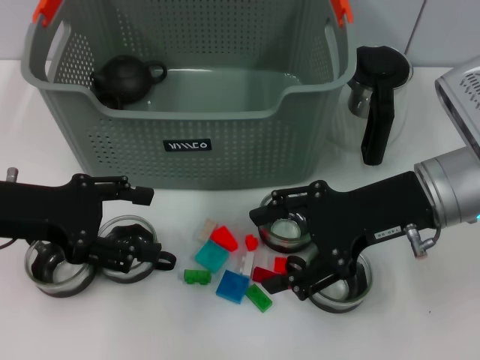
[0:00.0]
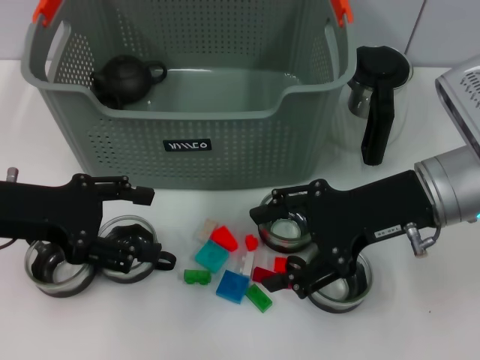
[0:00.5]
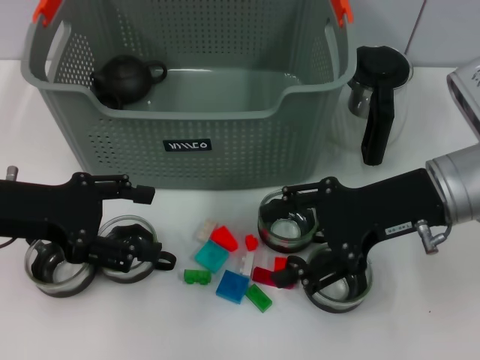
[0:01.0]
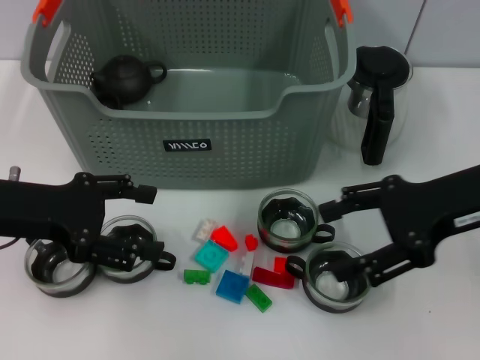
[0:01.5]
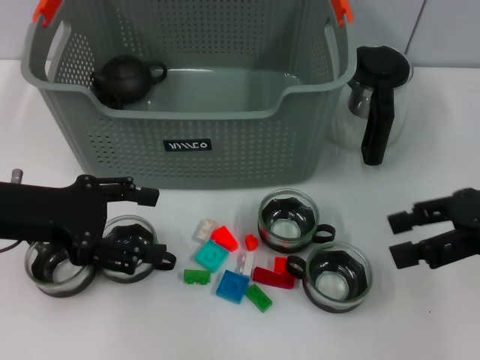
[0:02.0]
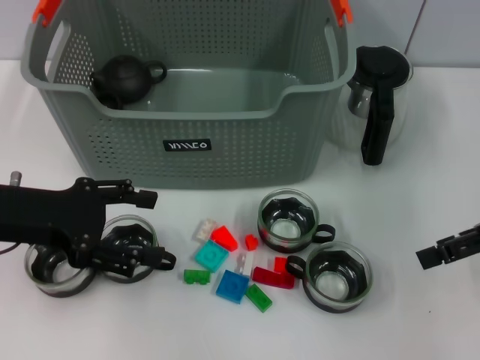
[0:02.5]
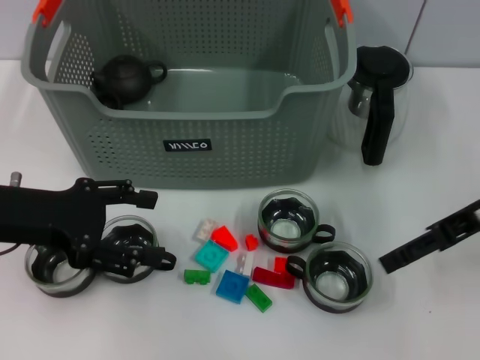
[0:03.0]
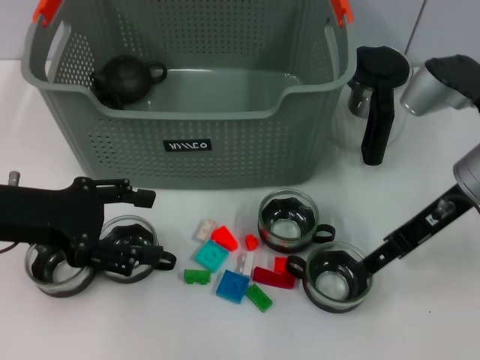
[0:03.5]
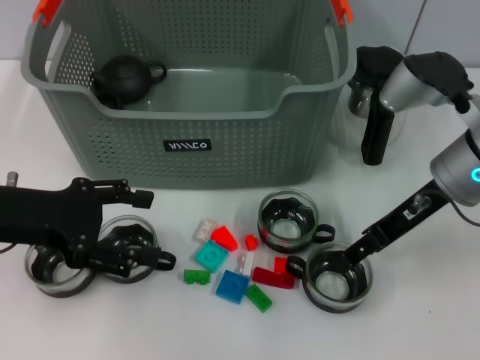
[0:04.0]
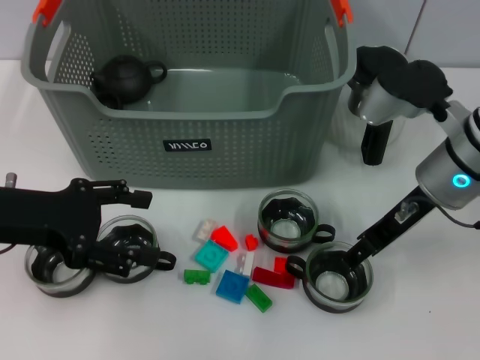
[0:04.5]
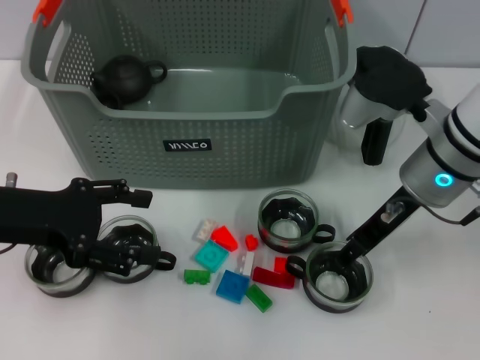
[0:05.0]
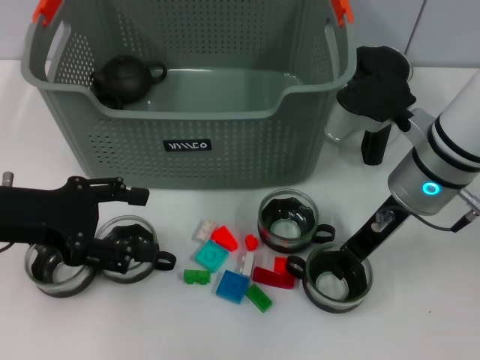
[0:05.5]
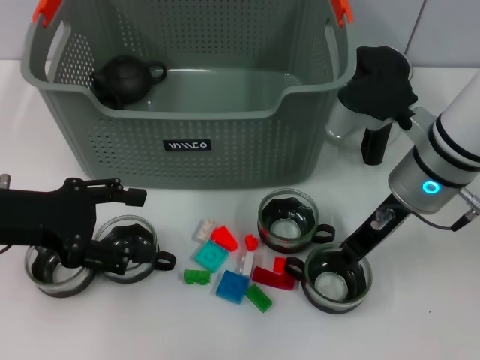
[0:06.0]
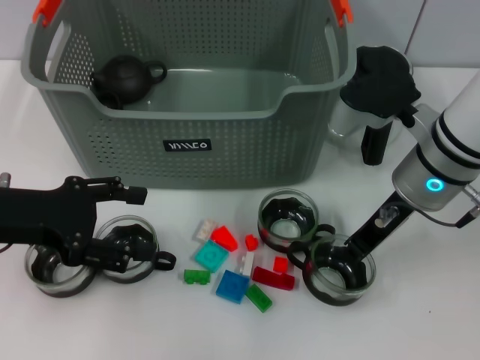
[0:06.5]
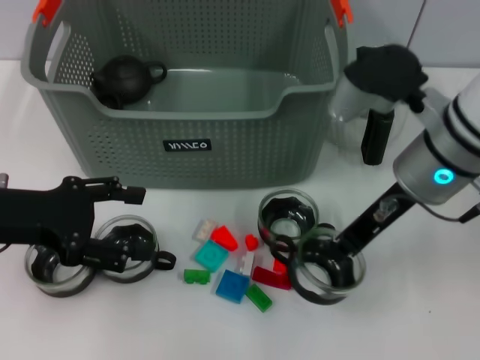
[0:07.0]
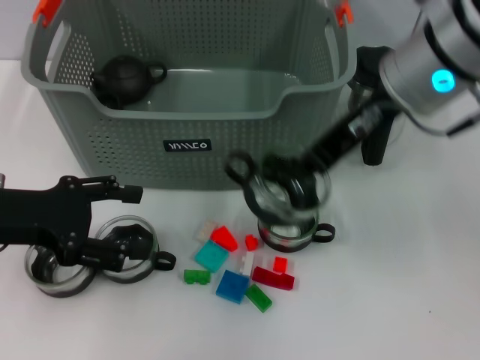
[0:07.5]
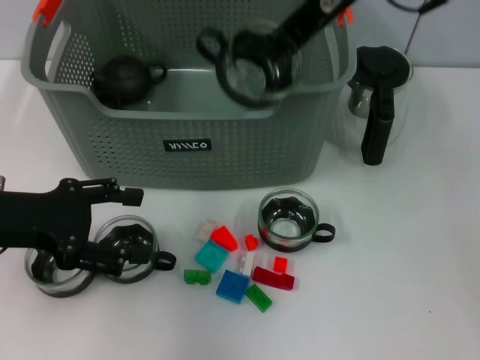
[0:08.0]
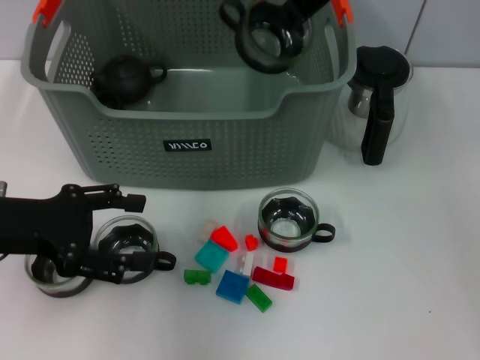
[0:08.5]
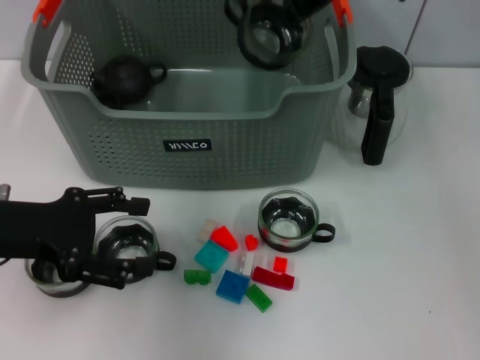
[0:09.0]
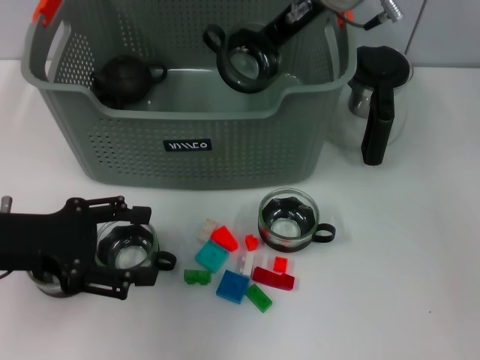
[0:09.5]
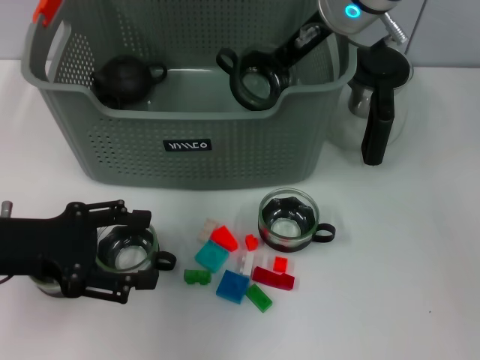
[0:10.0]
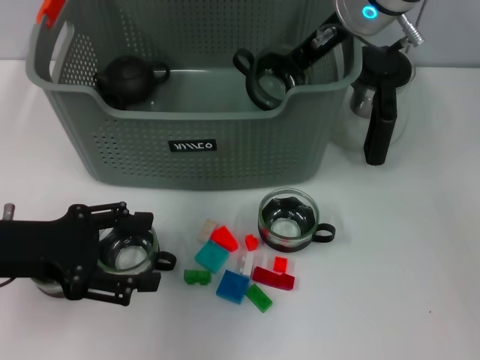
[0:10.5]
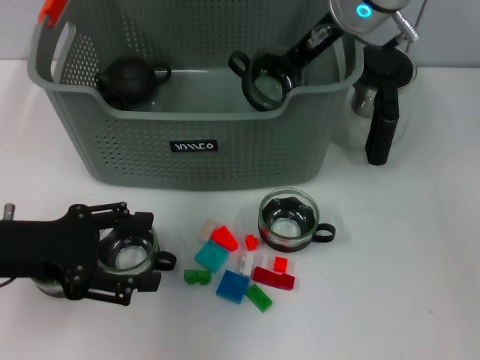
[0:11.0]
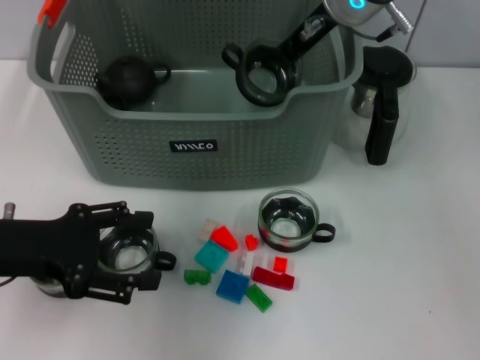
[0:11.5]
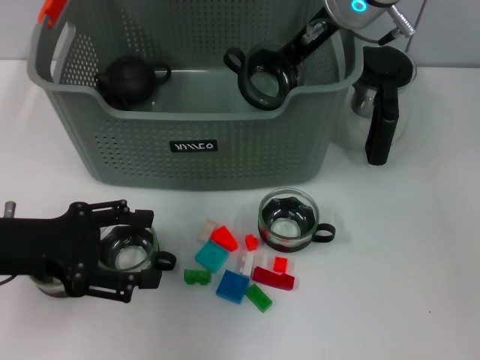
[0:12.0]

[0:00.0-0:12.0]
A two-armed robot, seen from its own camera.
Task of the whole recording: pick up the teacup on the table and place it into the storage bin, pick up the block on the table and place it into the storage bin.
Step, 0:00.0 to 0:06.0: Grasp the cup with right gripper.
0:00.0 to 0:02.0: The right gripper travels to the right by roughly 10 cm.
0:02.0 to 0:04.0: The right gripper is displaced to the left and forward by some 10 cm.
0:04.0 to 0:06.0: The right gripper closes up.
0:06.0 to 0:08.0: The right gripper goes about 20 cm upward, and closes up.
0:08.0 to 0:10.0: The right gripper heads downward and forward, covering roughly 10 cm.
0:10.0 to 0:12.0: The grippers make only small movements.

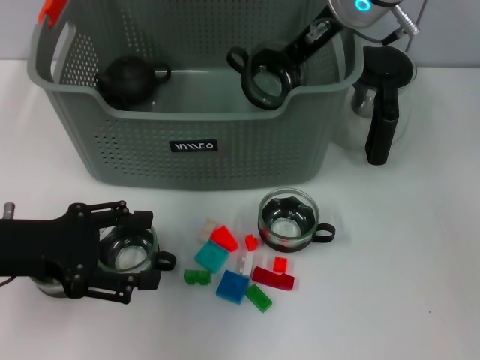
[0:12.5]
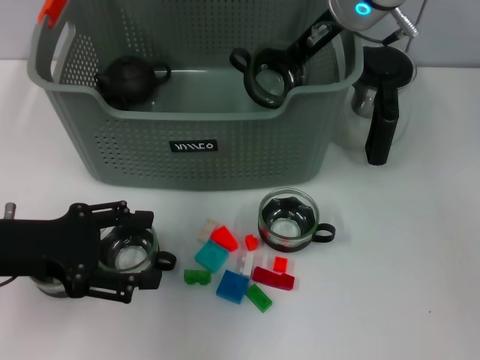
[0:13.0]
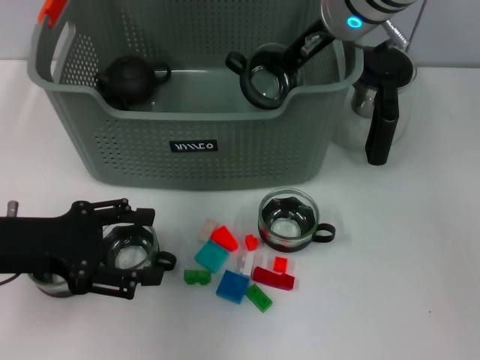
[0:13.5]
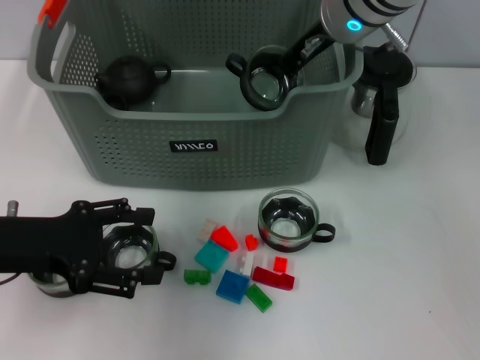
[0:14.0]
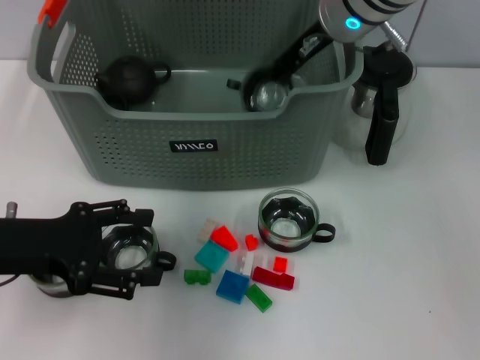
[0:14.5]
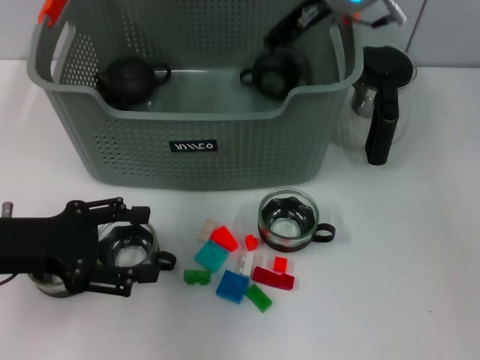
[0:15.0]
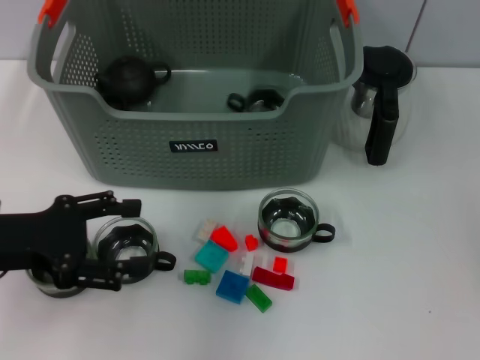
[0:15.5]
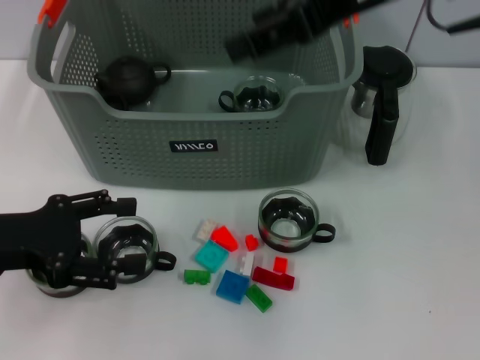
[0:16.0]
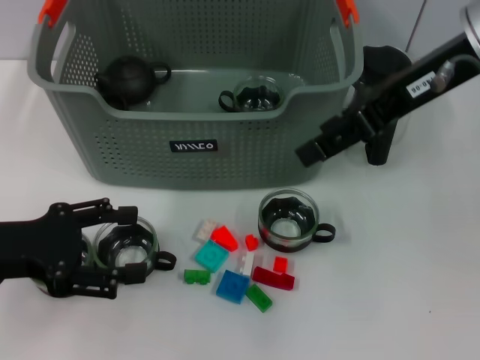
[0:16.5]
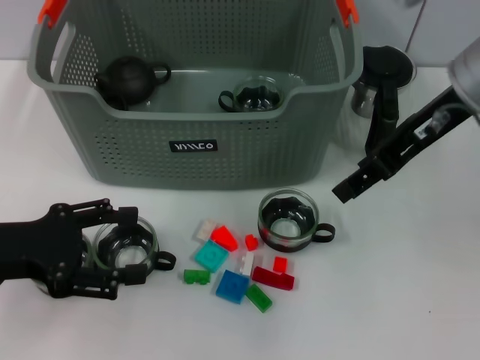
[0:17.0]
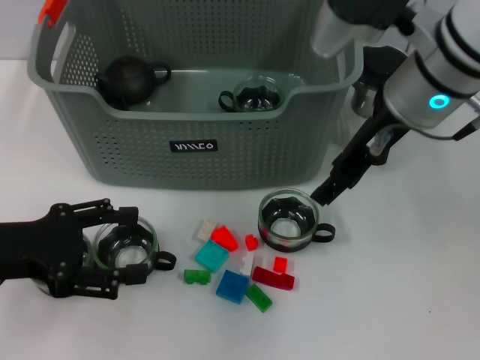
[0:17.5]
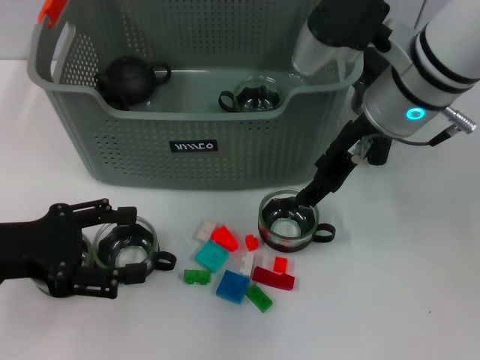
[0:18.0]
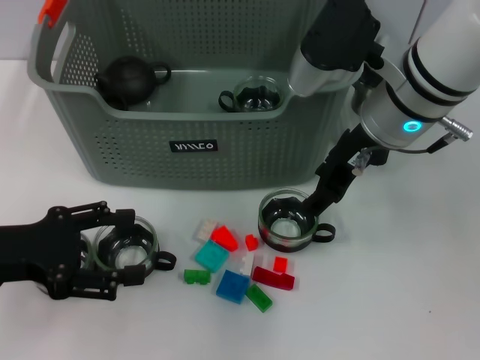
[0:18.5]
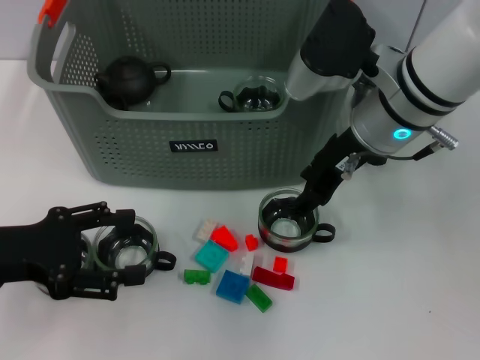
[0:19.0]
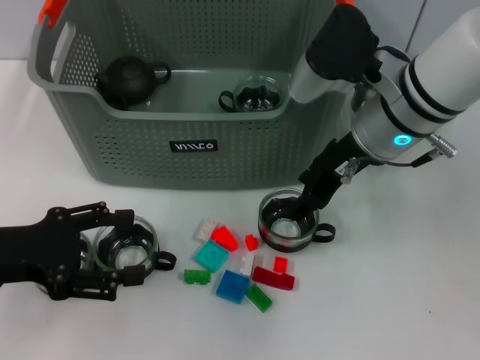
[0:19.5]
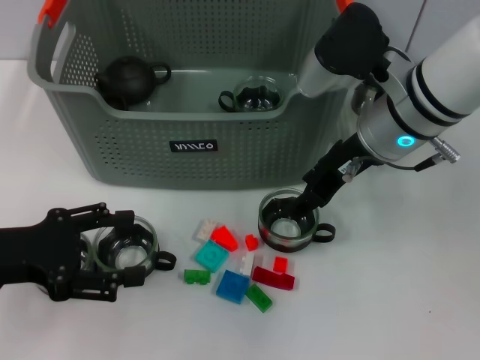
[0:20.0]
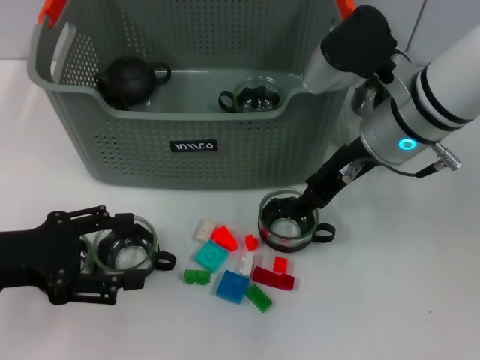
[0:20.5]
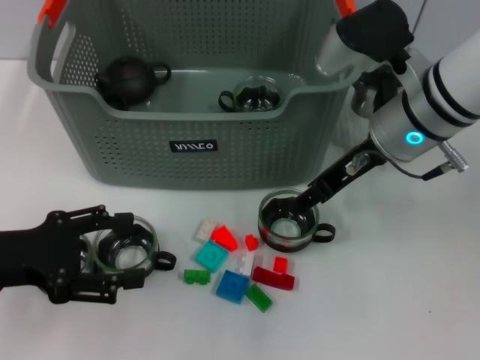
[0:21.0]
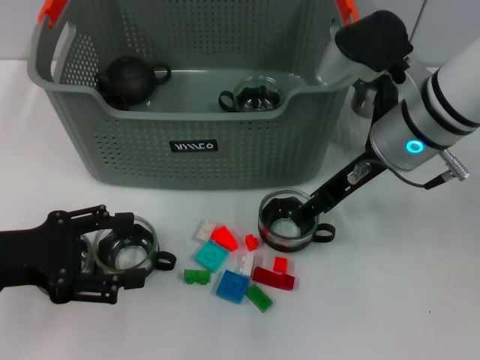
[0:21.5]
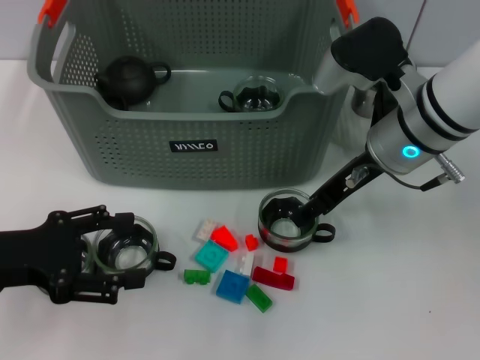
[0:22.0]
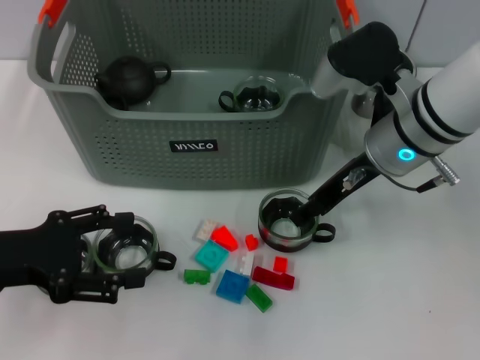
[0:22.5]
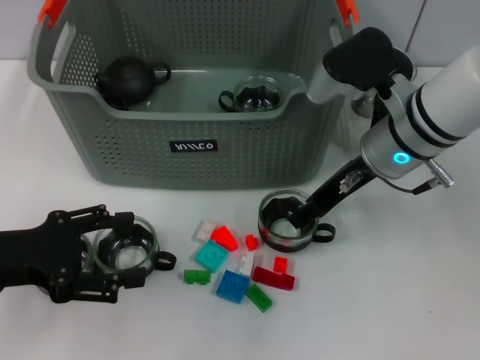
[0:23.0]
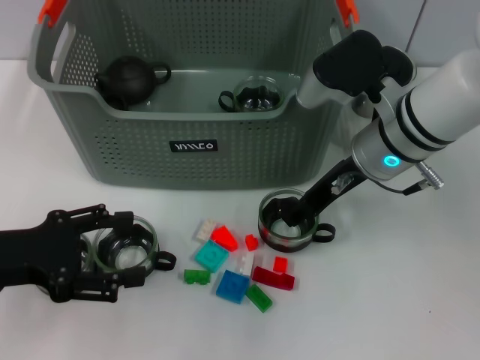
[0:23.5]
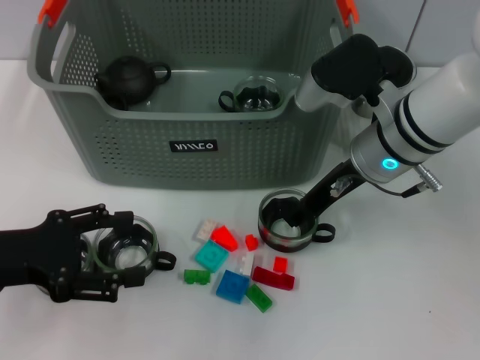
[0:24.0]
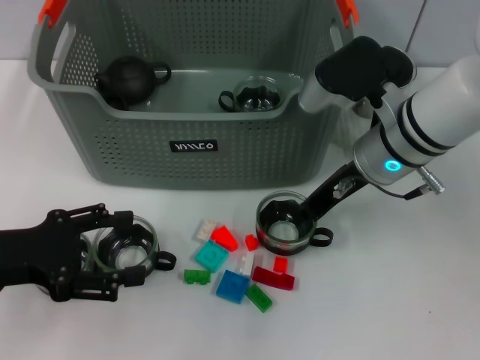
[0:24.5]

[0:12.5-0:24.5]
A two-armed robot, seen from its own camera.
Task of the whole recording: pick up the teacup on the table and place it into the storage bin, pick up the block on the table and place it into the storage bin.
Step, 0:12.5 to 0:15.5: Place the cup in the storage box with right gripper.
0:12.5 to 0:14.5: The grippers make only small movements.
0:14.5 to 0:16.5: The right gripper shifts approximately 15 cm backward, to the right and upward, and opens.
0:16.5 to 0:18.5: The right gripper is displaced downward and to the left by roughly 10 cm.
0:18.5 to 0:20.5: The grippers stay close to where they were, moving slightly.
0:20.5 to 0:22.5: There are only small adjustments of the grippers.
0:22.5 to 0:24.5: The right gripper closes.

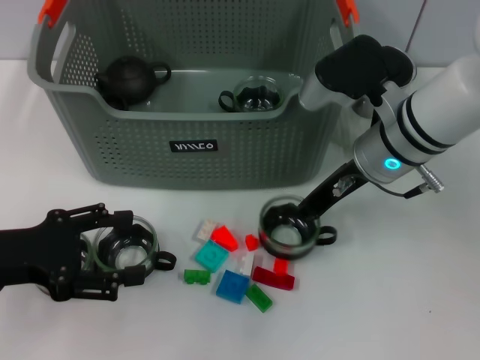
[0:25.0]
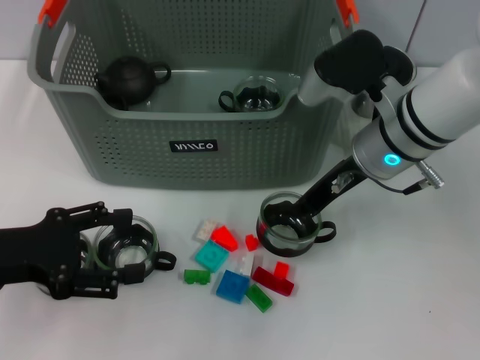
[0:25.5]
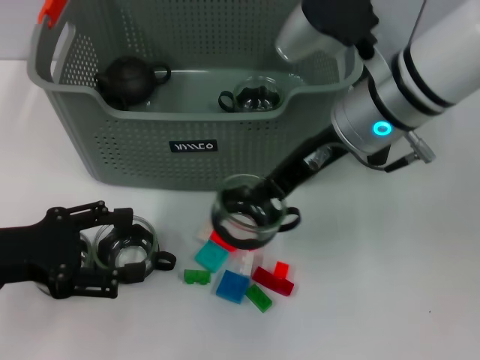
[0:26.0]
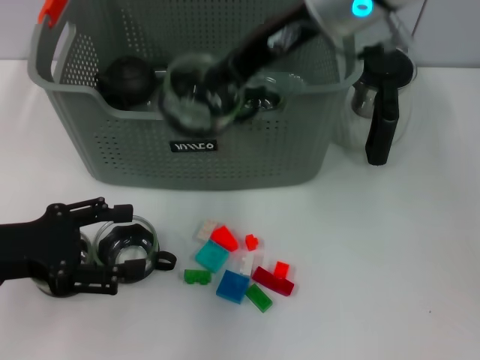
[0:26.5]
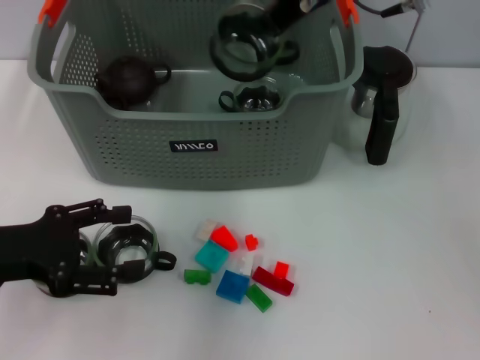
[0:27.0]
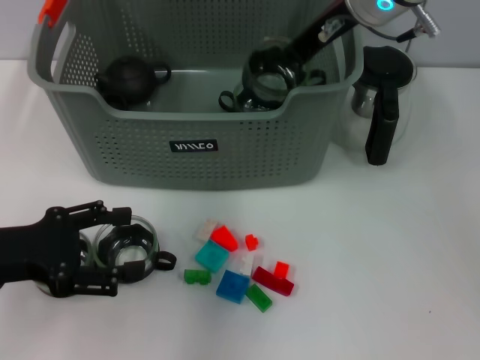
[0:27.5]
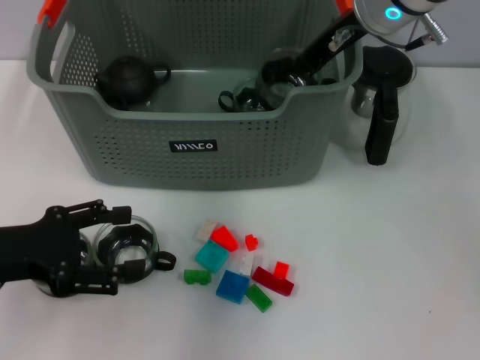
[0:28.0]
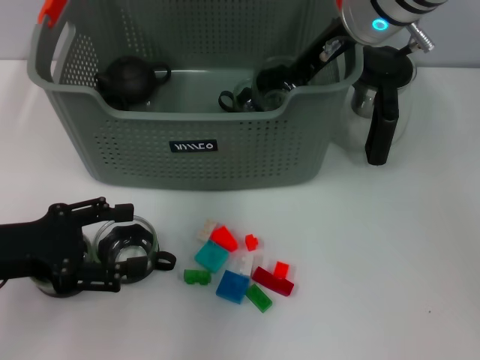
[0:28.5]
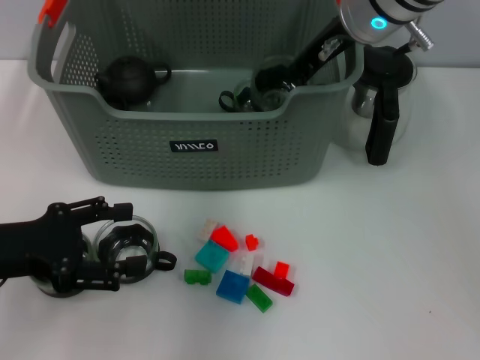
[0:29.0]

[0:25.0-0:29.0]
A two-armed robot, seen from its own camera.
Task of the whole recording: pick up the teacup on the table and place it into the storage bin, pick up the block on the table and place it into the storage bin.
0:25.0 to 0:27.0: The right gripper travels upward by some 15 cm.
0:27.0 to 0:29.0: The right gripper moves about 5 cm.
